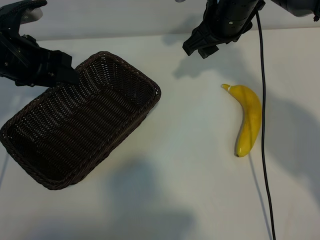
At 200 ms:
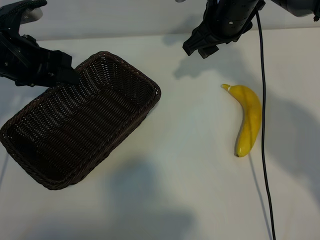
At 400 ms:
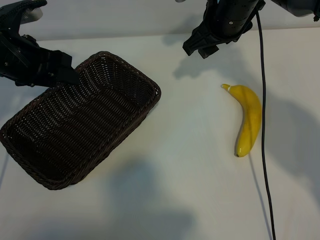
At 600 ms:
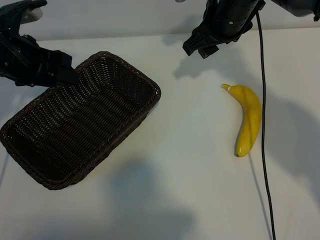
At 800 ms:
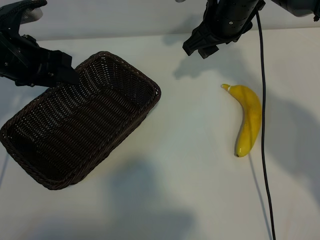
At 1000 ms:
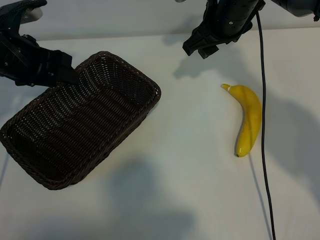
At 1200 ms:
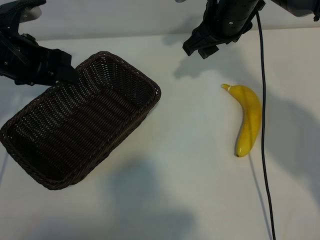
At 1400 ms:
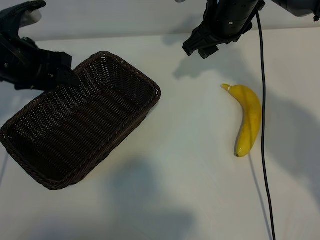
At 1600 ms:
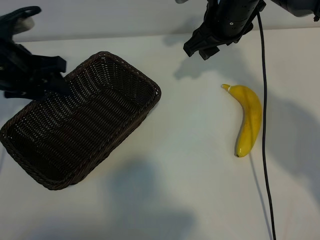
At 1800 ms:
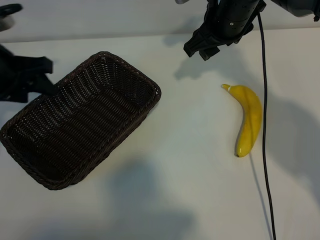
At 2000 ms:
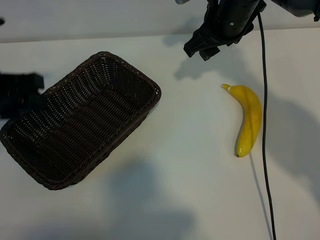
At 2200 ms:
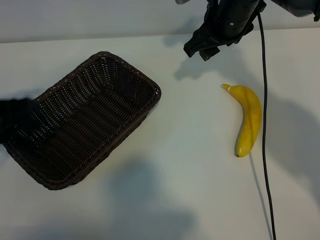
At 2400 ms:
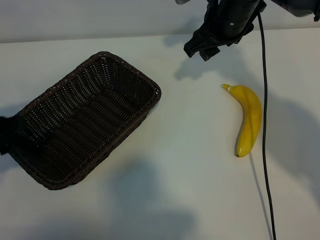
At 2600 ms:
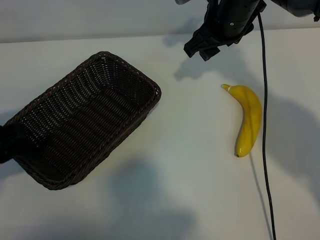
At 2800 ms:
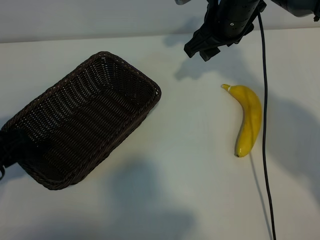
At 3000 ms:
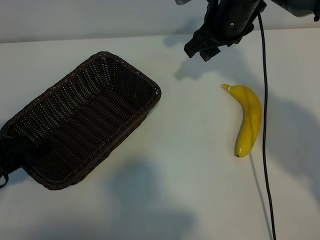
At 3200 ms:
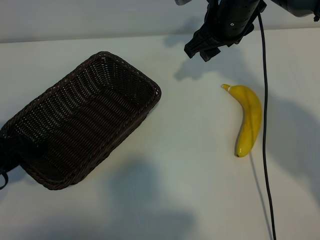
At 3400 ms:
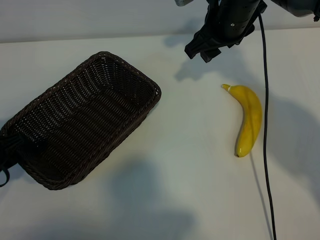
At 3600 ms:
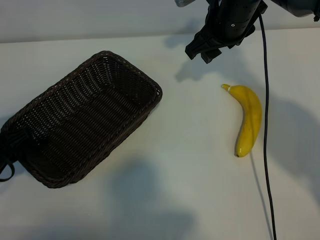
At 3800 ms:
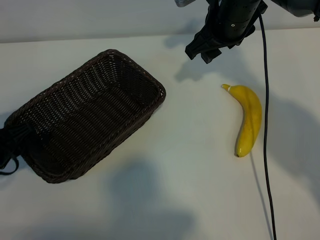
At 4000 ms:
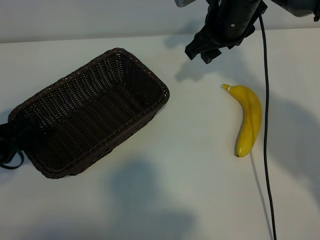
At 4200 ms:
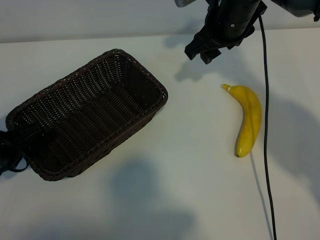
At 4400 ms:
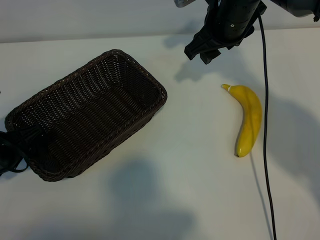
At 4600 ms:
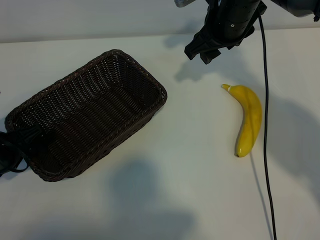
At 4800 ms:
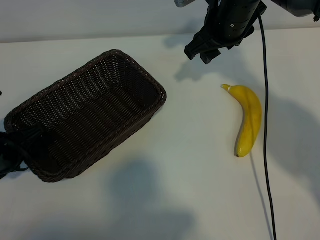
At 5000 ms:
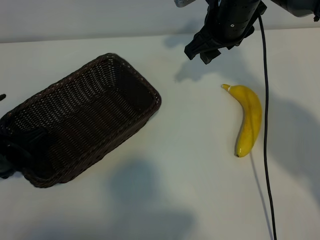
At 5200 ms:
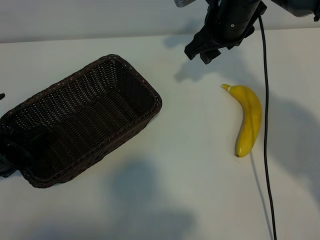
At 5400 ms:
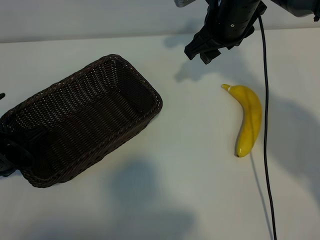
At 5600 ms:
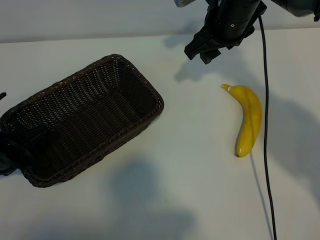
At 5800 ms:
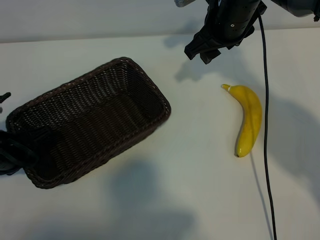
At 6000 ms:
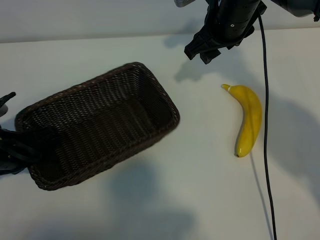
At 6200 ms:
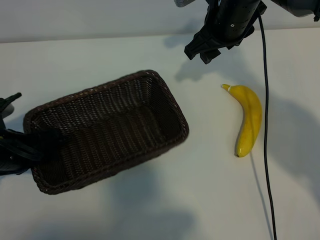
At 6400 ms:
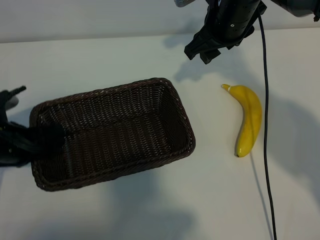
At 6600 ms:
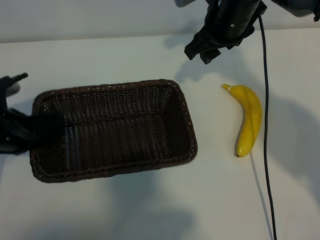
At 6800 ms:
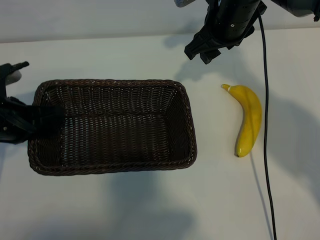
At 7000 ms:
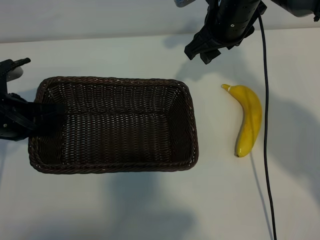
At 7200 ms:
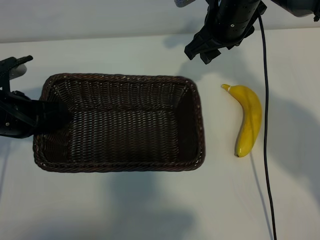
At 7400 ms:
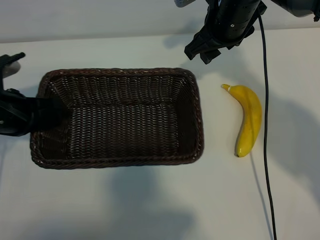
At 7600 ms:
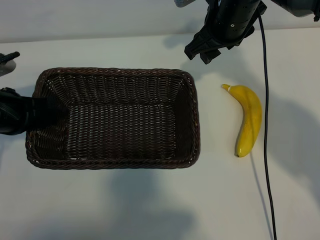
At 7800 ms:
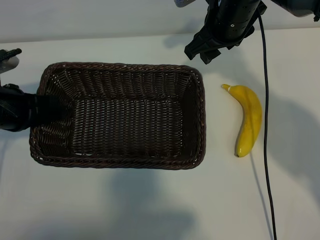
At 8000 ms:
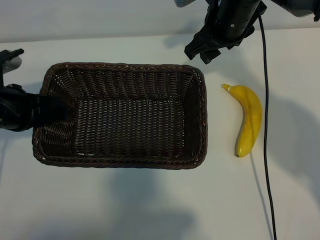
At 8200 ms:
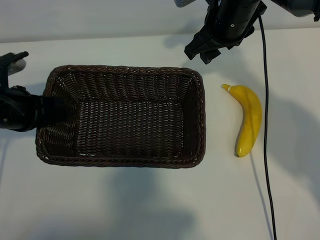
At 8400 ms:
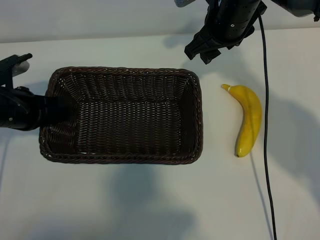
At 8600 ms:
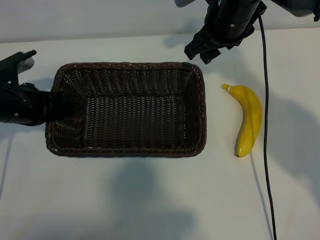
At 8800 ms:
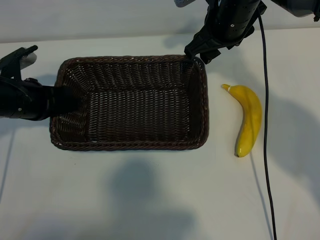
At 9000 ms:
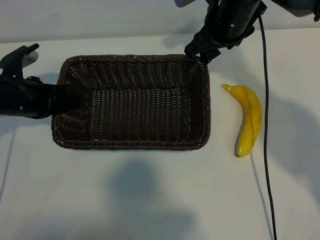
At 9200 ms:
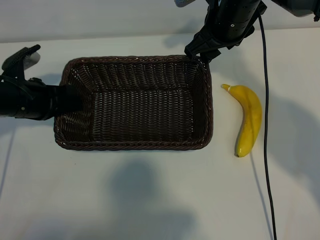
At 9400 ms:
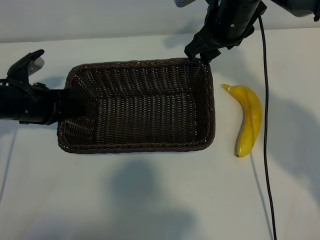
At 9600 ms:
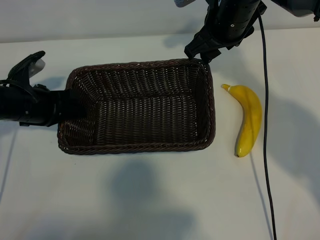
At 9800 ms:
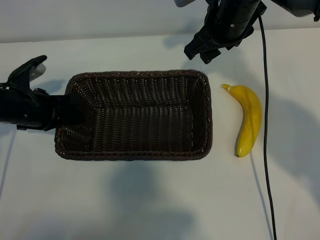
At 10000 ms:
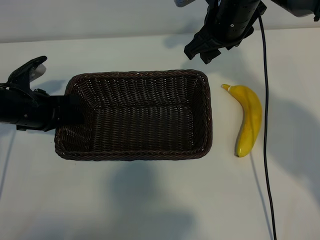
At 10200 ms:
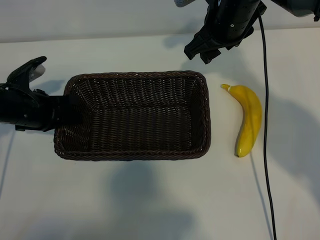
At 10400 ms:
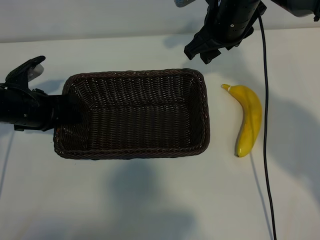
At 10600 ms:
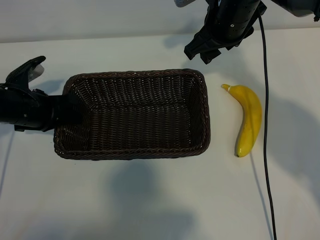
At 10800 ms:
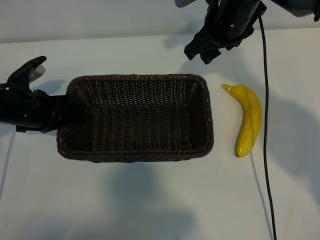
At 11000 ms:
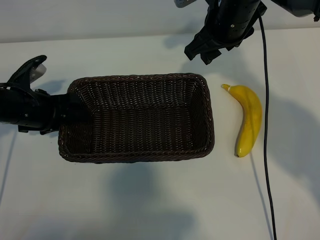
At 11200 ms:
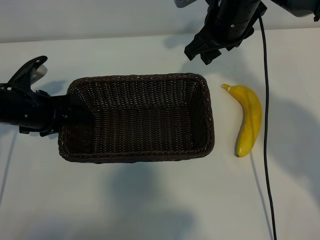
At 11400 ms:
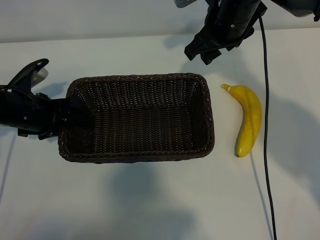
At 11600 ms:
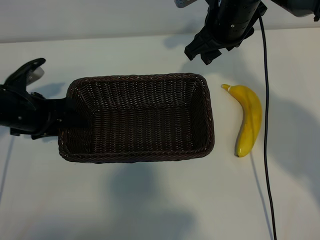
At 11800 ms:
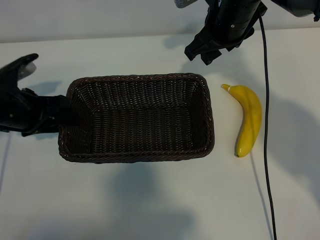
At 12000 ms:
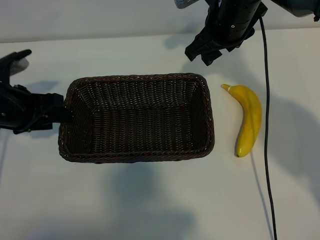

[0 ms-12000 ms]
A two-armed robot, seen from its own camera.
Task of the whole recording: pick up the banana and put it into the basket.
Step, 1000 ms to 5400 ms: Grasp the basket with the left gripper.
Step, 5600 ms to 11800 ms: Place the basket in the center of the table with the left gripper.

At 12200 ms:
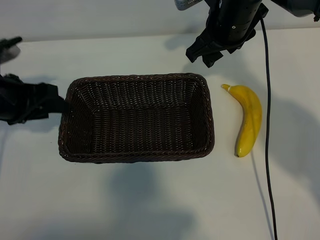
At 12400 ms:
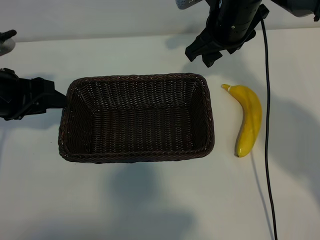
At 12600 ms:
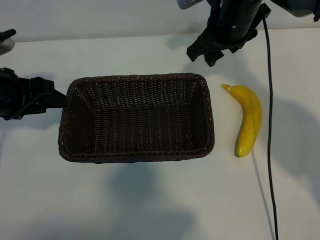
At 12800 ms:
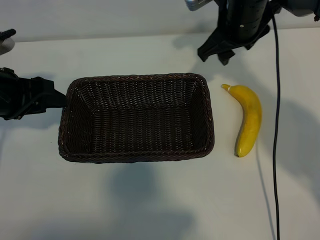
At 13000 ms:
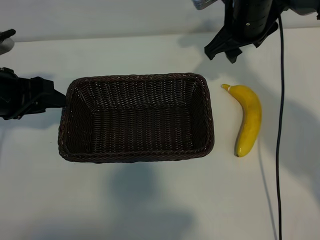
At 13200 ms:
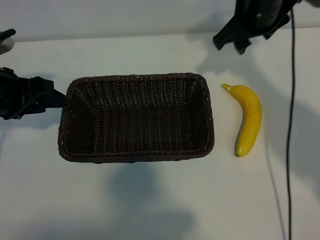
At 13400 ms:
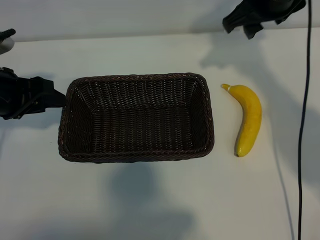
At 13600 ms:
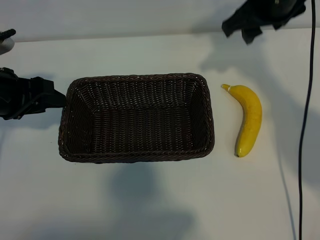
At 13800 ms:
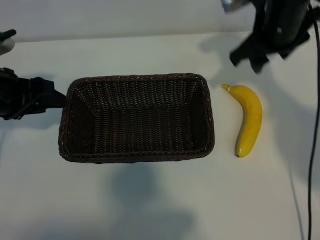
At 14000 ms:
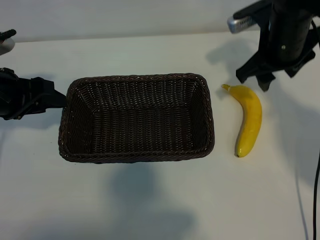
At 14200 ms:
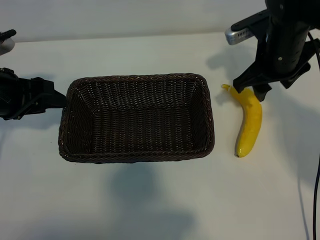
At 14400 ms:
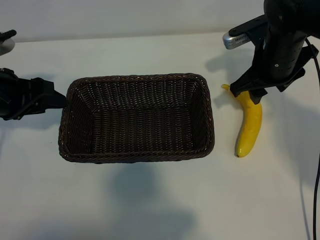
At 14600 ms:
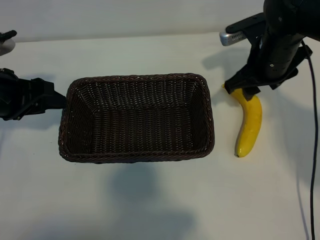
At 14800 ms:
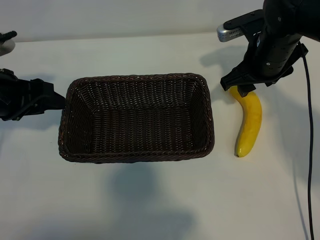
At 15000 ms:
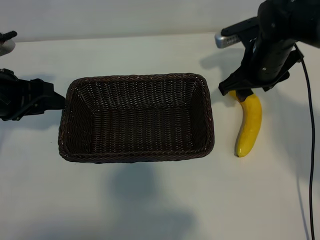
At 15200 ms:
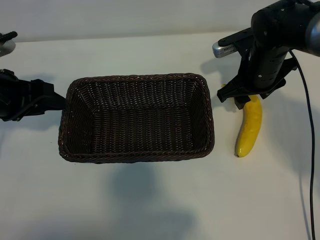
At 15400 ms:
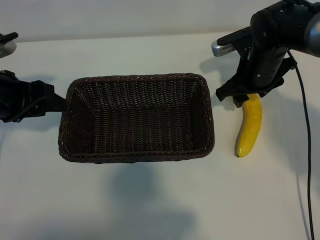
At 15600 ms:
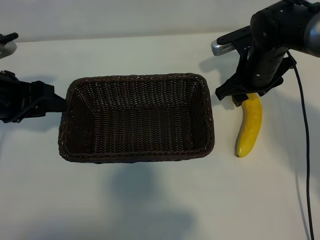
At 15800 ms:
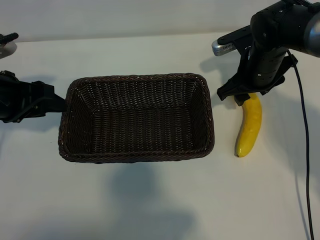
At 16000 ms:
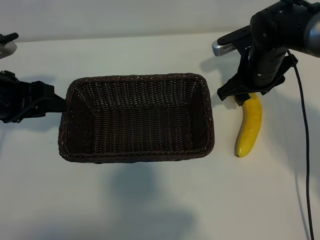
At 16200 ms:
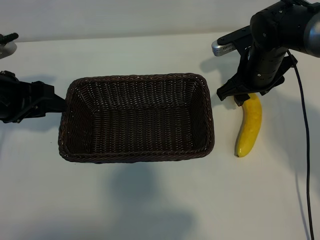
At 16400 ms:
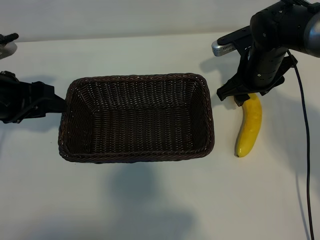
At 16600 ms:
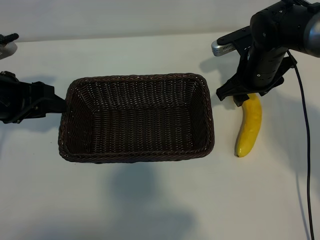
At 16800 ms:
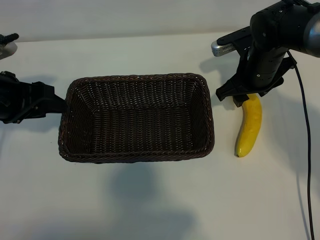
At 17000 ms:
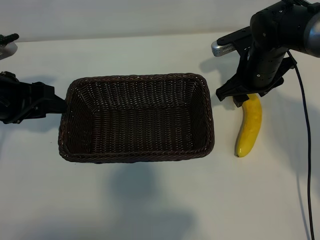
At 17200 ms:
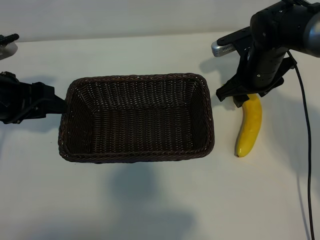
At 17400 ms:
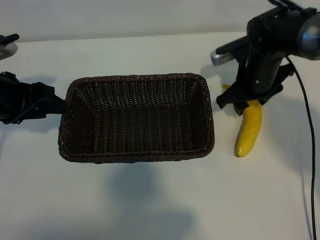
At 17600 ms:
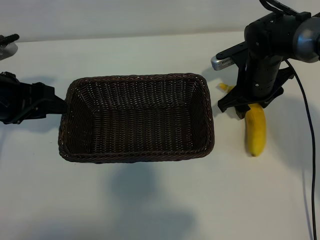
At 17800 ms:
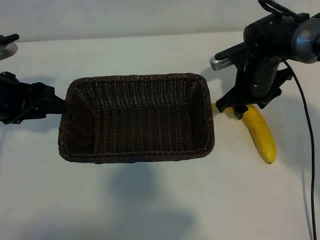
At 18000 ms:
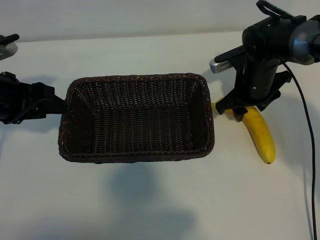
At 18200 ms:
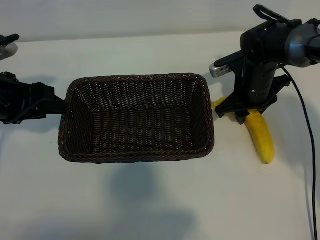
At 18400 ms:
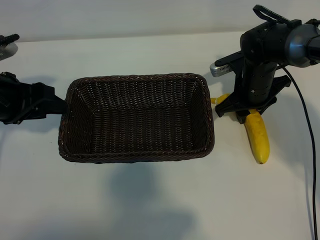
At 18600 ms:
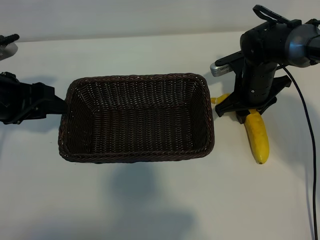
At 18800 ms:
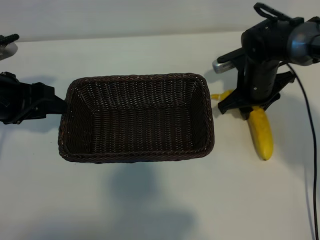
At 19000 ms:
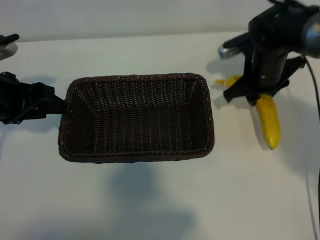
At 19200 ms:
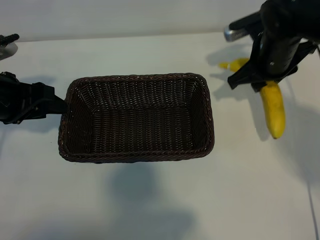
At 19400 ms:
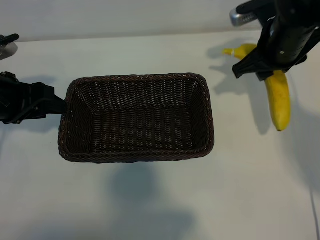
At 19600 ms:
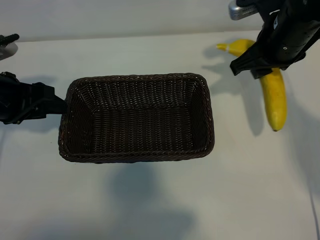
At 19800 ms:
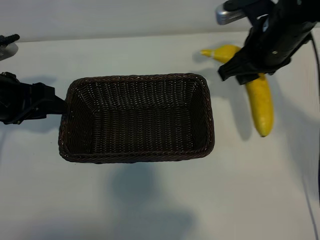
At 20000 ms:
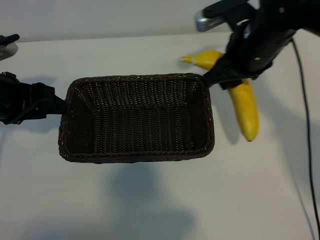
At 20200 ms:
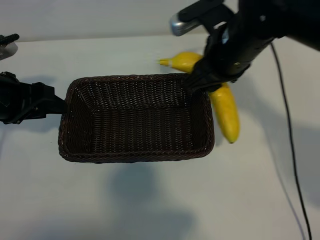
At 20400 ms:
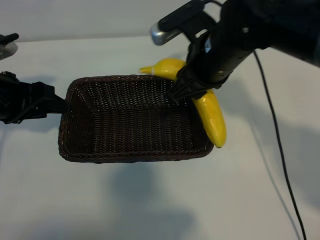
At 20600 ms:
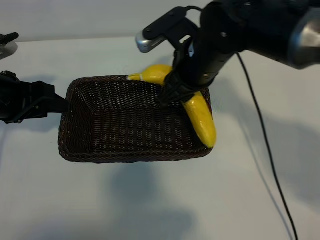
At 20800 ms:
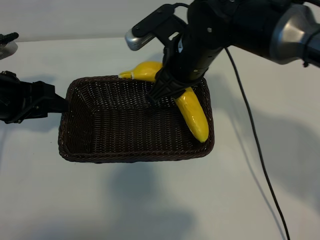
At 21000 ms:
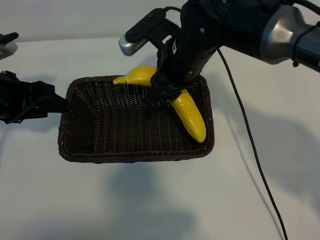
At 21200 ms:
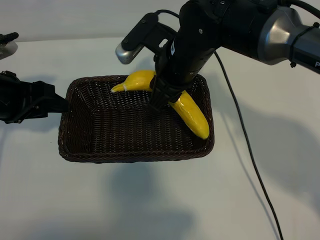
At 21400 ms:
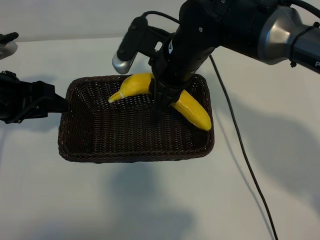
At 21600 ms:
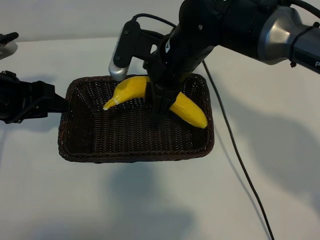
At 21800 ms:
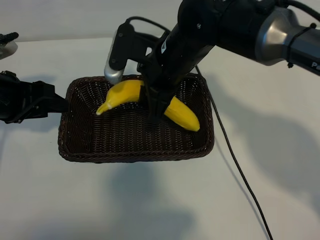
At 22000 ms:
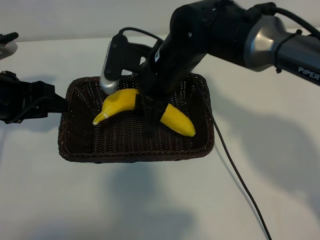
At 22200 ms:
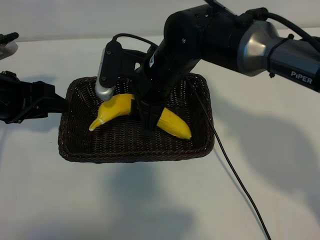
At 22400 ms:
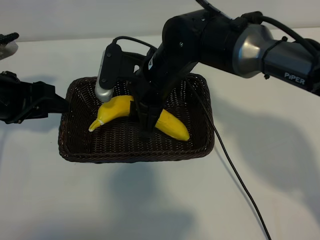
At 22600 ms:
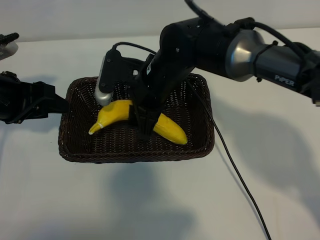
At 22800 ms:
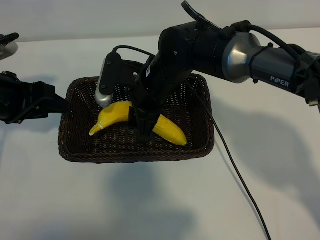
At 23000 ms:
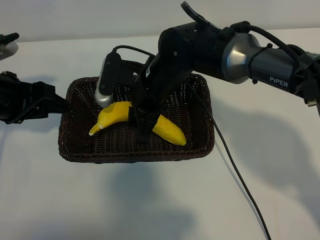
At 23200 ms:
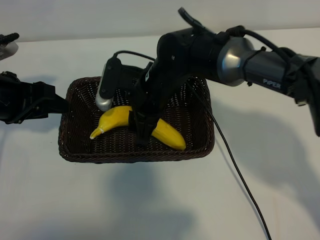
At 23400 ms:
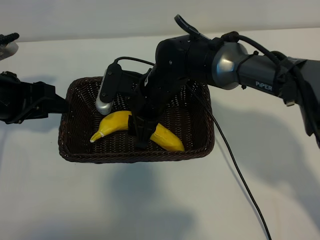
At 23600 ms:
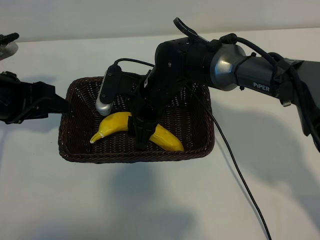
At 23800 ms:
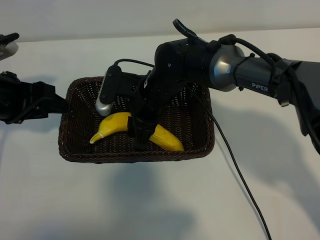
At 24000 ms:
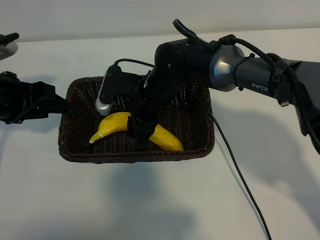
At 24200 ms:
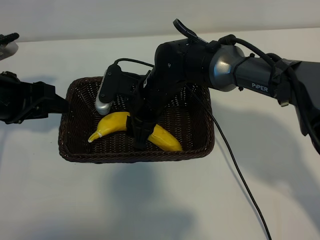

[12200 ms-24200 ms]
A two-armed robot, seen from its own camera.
Task of the whole recording: pick up the banana and put it into the basket.
Step, 12200 ms to 18400 ms: Grasp the banana with right gripper.
